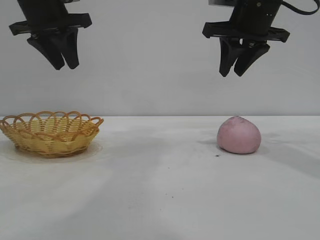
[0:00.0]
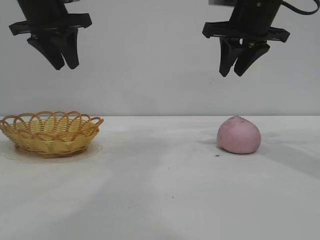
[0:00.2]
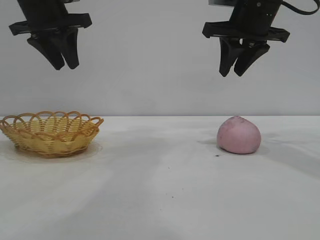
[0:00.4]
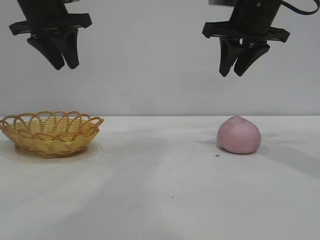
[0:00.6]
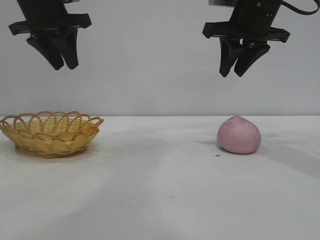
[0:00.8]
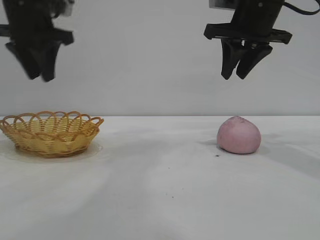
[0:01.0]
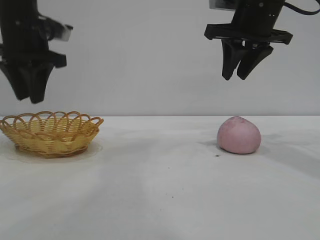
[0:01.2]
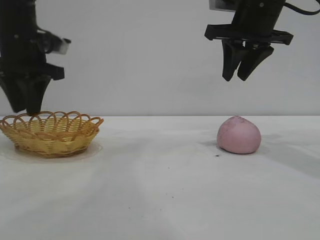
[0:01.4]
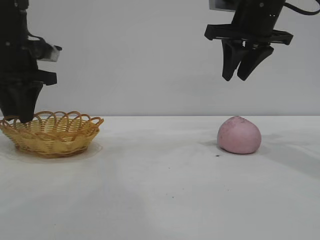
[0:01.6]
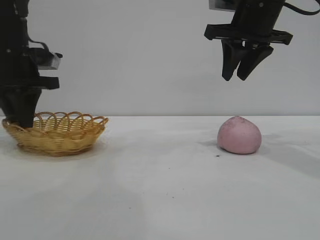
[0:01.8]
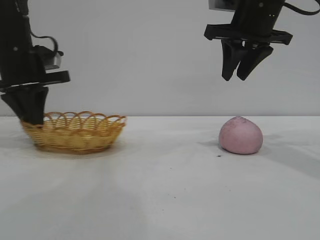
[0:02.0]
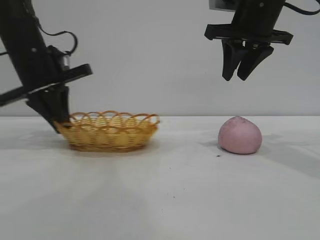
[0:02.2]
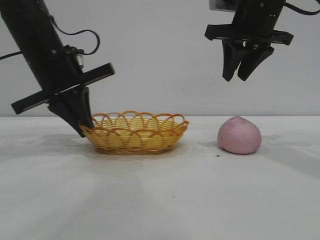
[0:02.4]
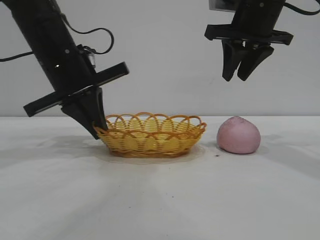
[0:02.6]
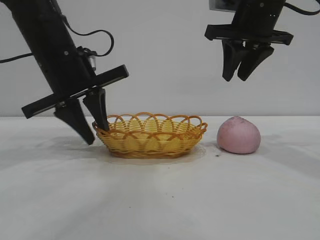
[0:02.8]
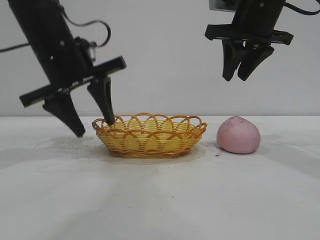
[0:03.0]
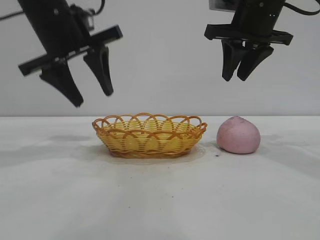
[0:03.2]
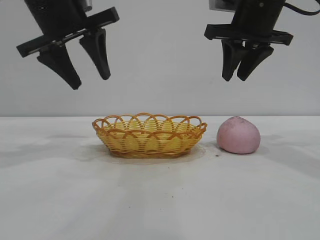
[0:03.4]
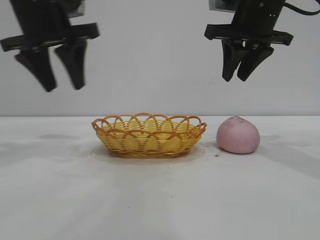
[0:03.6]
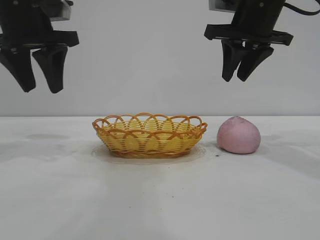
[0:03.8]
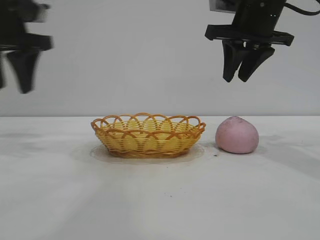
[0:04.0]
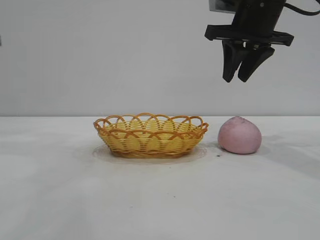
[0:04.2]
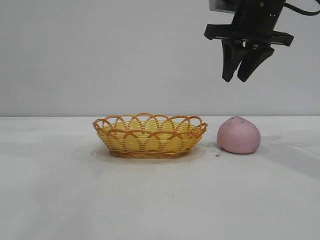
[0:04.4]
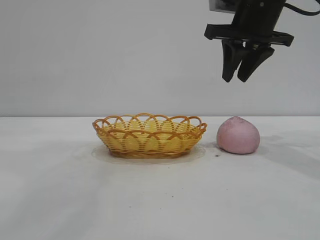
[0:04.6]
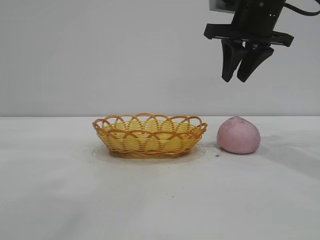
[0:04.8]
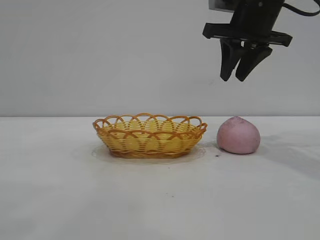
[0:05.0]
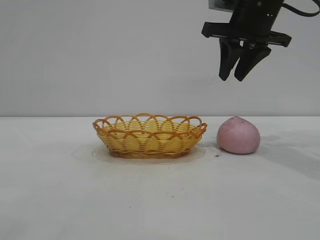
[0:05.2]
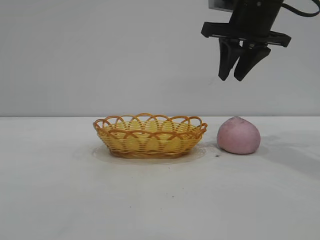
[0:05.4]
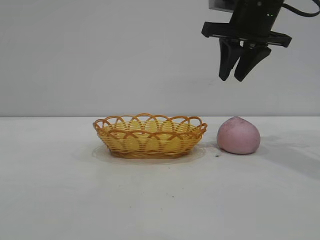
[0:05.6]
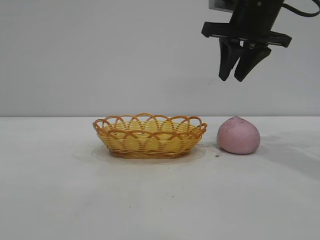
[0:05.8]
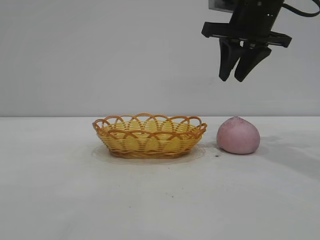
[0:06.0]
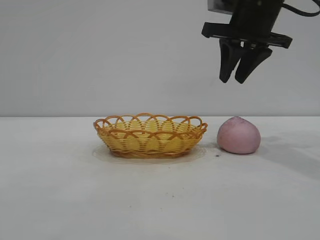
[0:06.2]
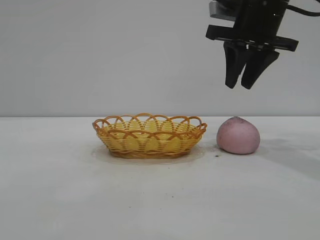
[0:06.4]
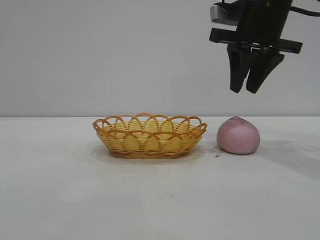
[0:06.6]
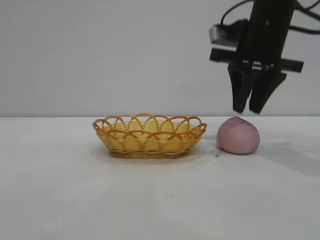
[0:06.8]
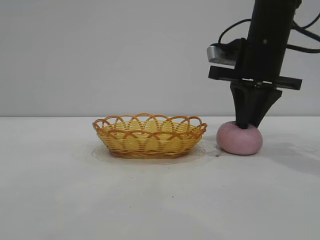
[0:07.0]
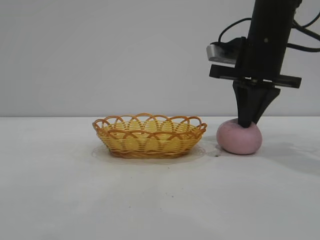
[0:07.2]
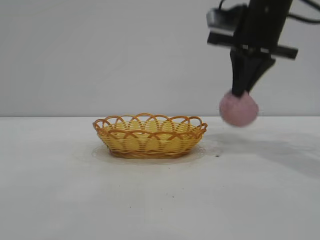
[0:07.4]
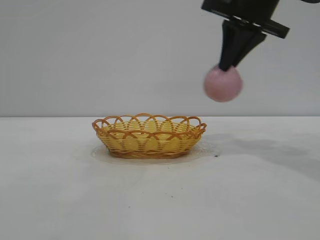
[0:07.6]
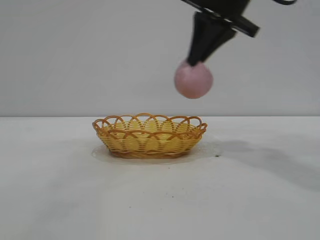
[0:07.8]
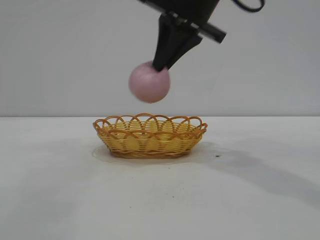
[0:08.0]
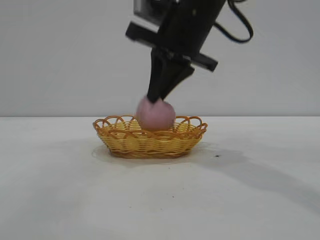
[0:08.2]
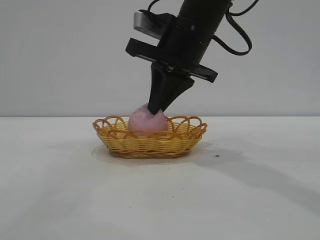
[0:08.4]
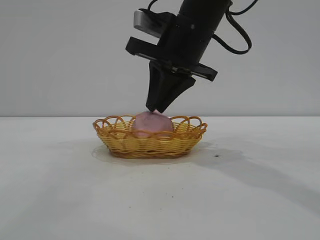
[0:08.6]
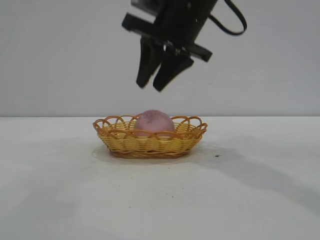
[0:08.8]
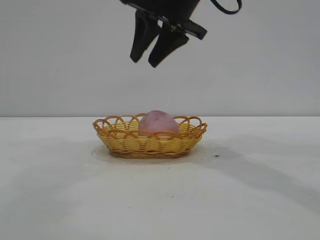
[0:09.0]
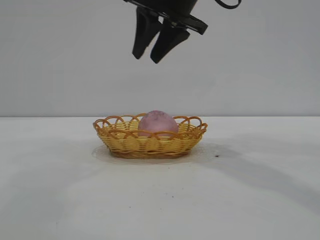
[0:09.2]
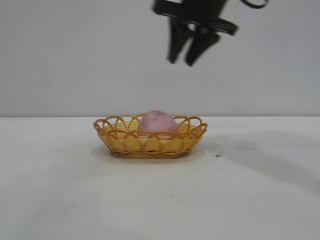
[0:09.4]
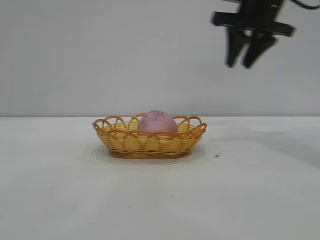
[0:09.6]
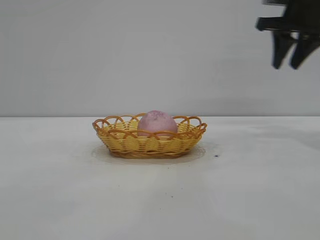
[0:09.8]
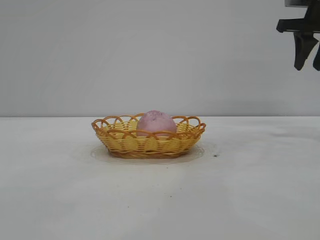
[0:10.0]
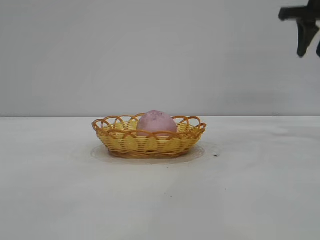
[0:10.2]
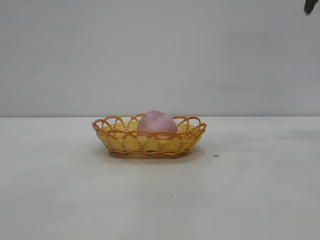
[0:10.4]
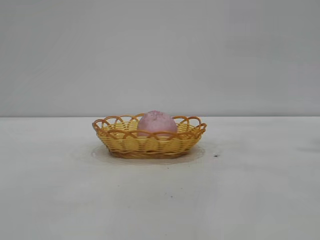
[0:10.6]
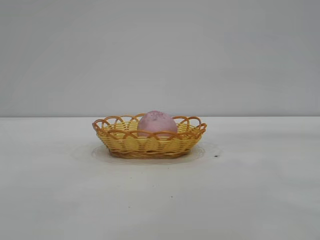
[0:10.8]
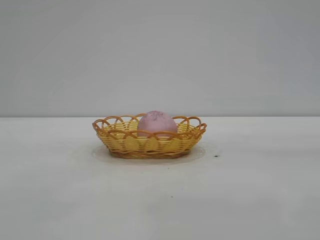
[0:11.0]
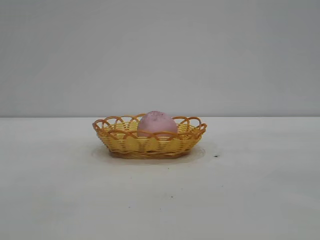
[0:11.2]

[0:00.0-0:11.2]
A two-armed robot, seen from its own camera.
Task of the whole recording: pick up the peach and put it into the basket.
Step, 0:00.0 to 0:03.0: Move the basket to the center of view.
Step, 0:03.2 to 0:07.4: Pick up the peach.
Step, 0:07.6 to 0:09.0: place the peach into the basket.

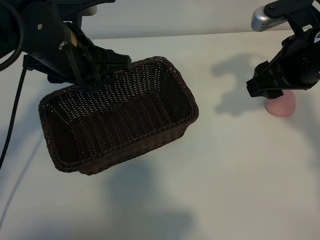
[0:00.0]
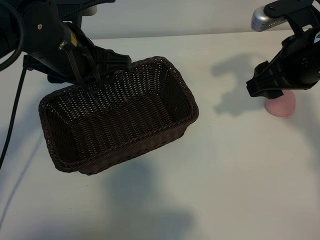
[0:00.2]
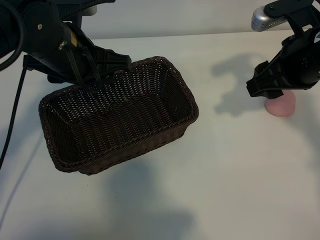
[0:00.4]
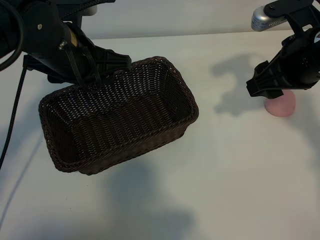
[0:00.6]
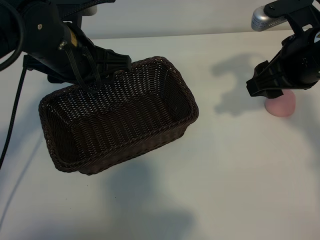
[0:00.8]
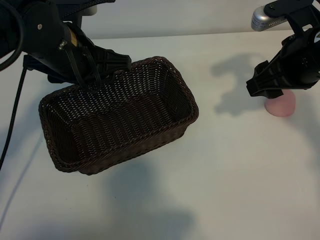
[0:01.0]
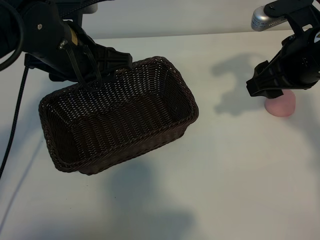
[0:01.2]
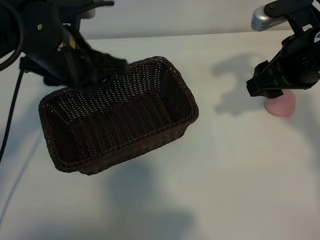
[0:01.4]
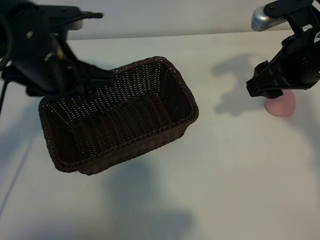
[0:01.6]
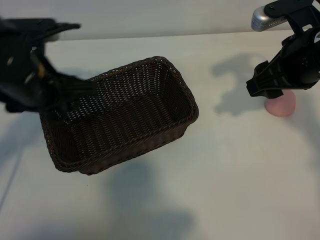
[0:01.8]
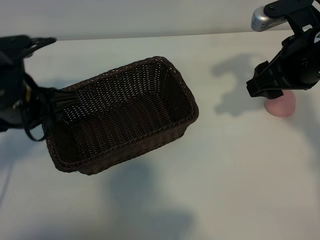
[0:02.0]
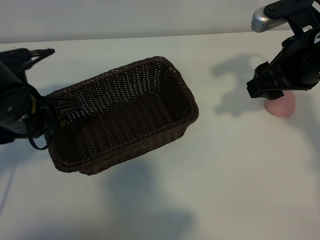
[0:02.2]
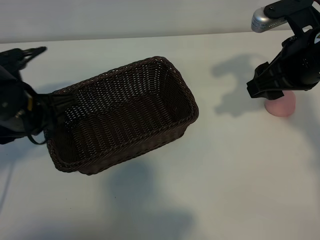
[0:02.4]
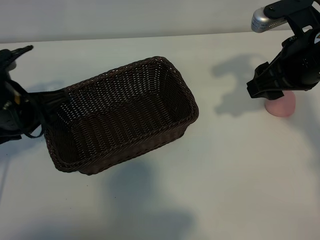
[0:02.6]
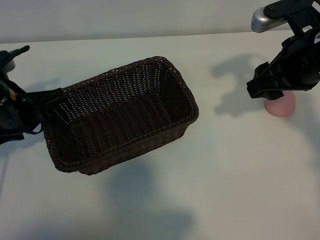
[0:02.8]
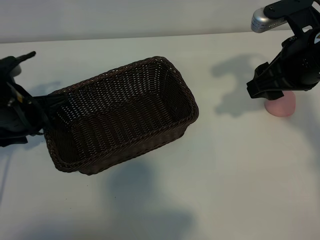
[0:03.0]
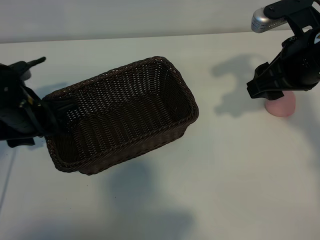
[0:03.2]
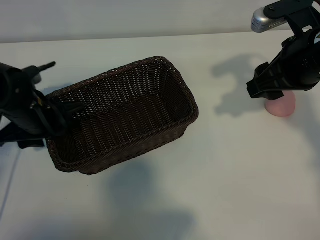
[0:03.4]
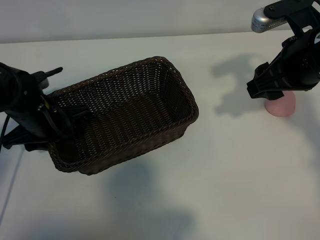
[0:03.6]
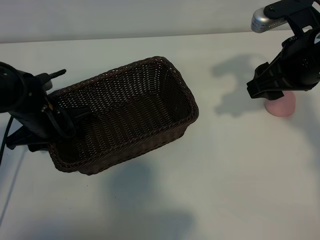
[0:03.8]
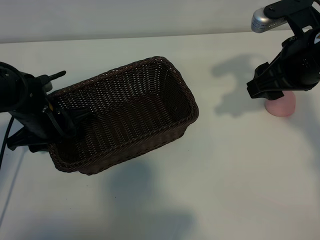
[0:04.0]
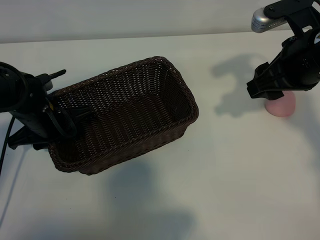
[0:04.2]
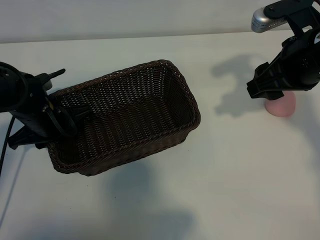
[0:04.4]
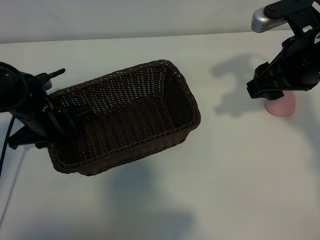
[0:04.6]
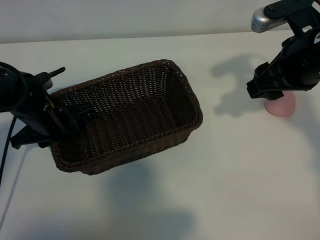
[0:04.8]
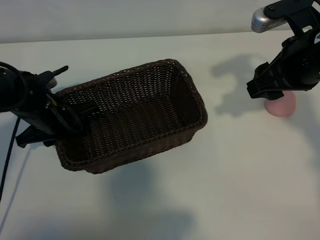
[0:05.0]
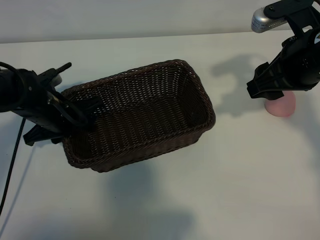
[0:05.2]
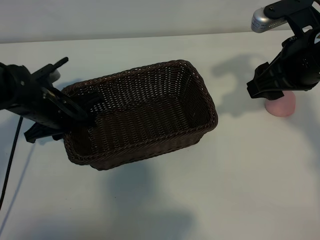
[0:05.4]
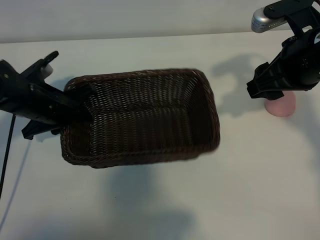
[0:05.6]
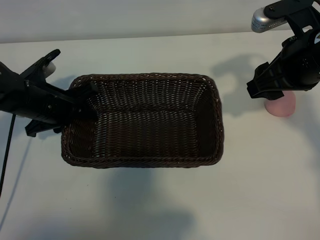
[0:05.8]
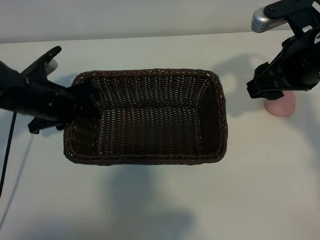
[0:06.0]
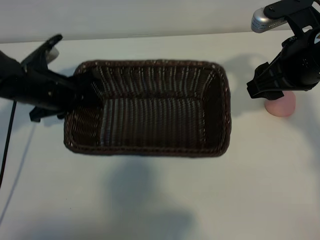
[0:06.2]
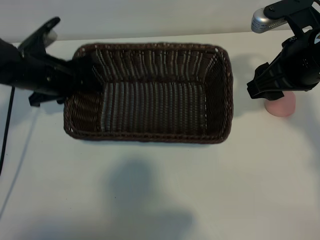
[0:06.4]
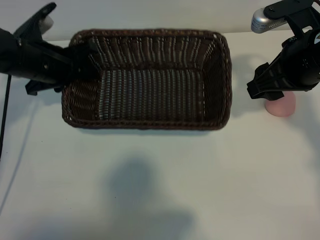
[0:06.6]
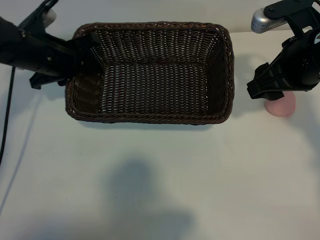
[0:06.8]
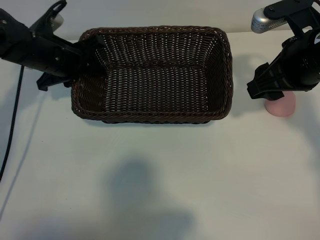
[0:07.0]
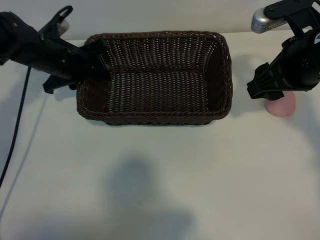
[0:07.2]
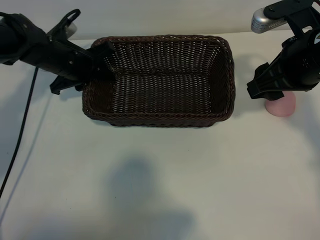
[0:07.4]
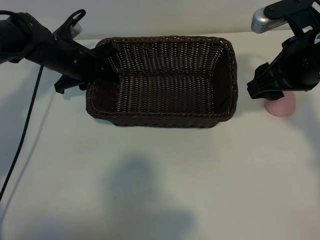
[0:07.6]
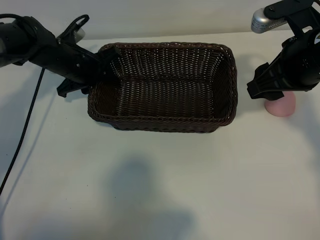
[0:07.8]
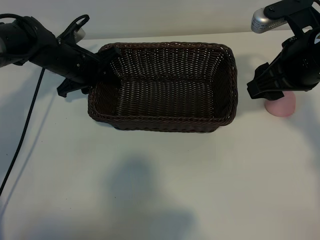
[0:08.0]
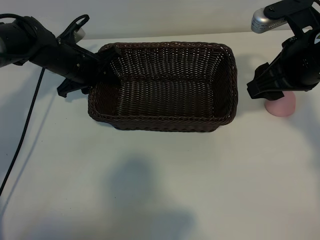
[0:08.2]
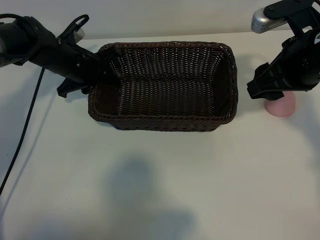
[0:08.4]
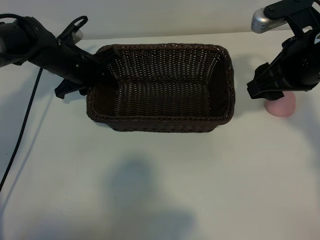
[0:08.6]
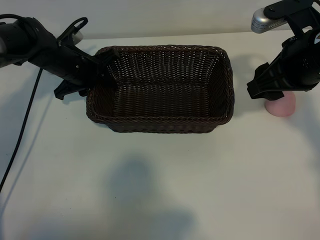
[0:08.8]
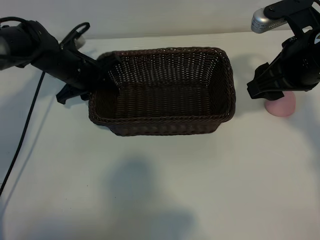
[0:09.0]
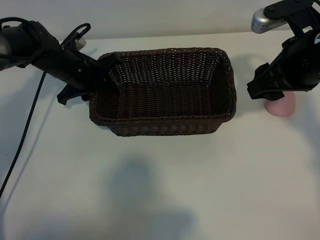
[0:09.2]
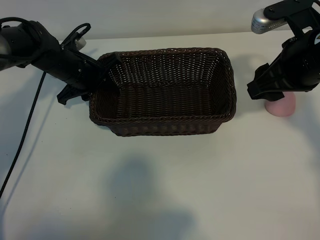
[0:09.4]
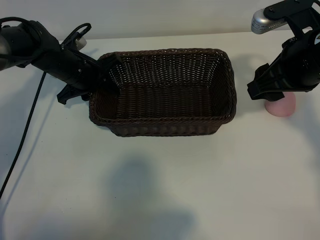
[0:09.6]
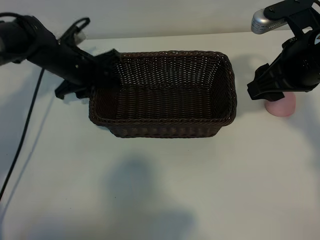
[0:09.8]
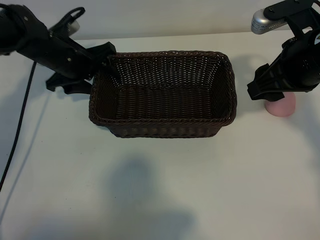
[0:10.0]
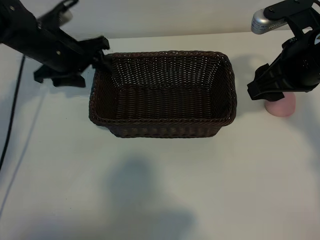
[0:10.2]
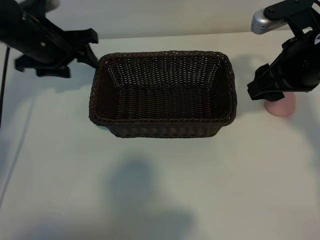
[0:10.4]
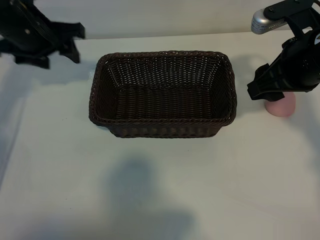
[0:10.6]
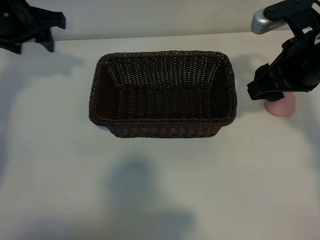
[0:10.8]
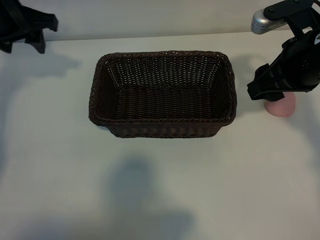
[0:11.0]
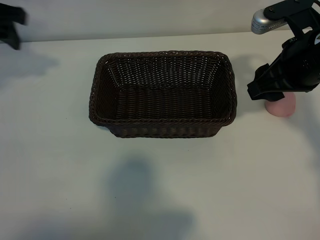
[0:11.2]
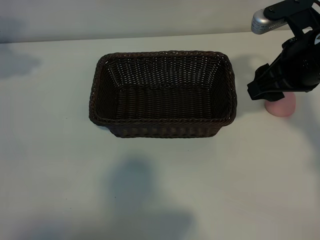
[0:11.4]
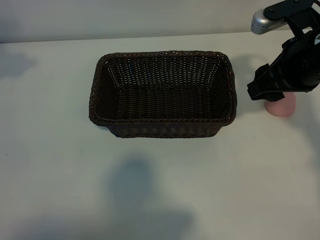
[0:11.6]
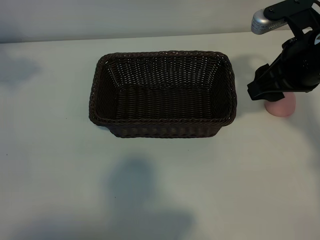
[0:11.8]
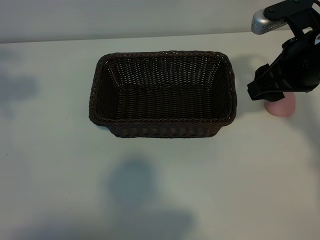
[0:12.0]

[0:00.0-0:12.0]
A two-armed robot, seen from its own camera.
Task of the whole recording: pick up the peach and put it into the basket.
Step, 0:01.0 to 0:04.4: Grasp the basket with left gripper.
Step, 0:04.6 to 0:10.0: Place the basket in the center of view with left gripper.
